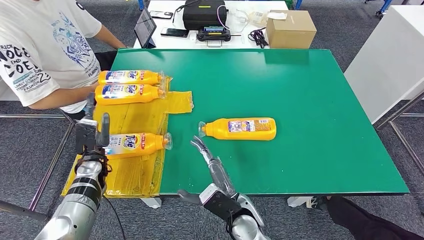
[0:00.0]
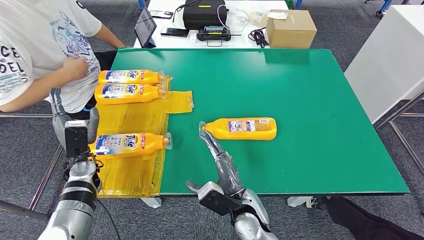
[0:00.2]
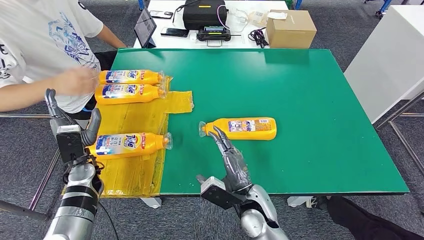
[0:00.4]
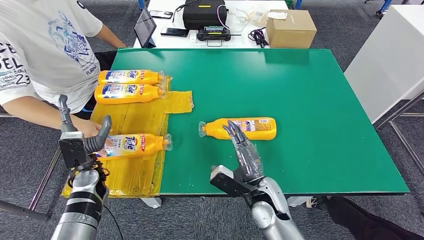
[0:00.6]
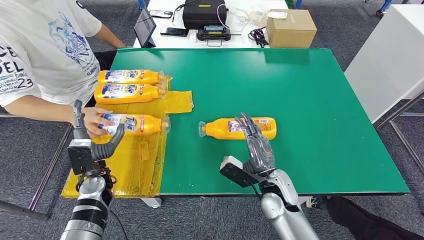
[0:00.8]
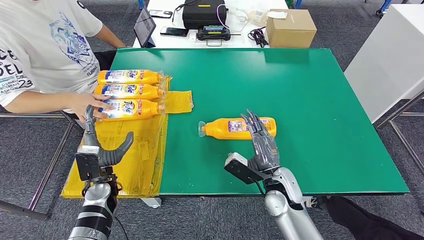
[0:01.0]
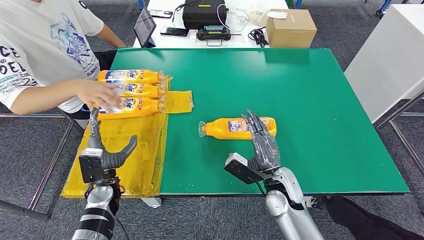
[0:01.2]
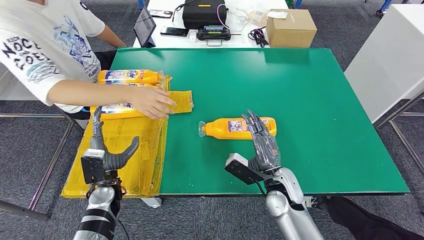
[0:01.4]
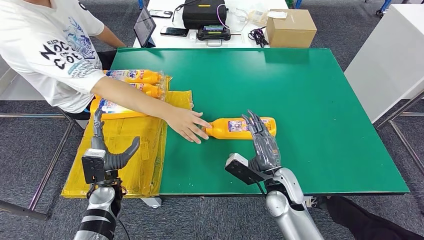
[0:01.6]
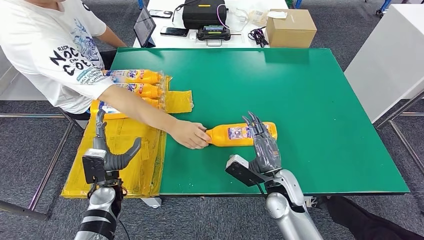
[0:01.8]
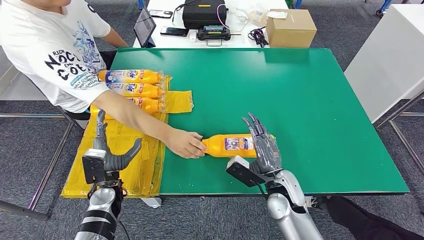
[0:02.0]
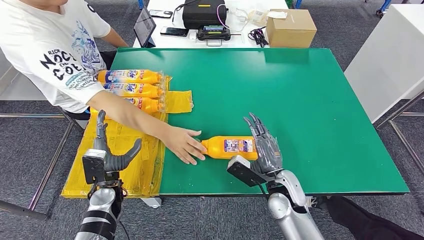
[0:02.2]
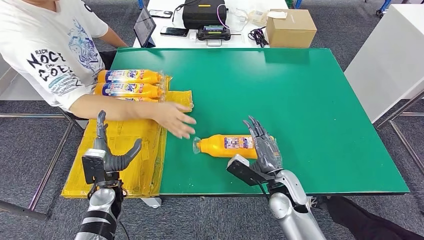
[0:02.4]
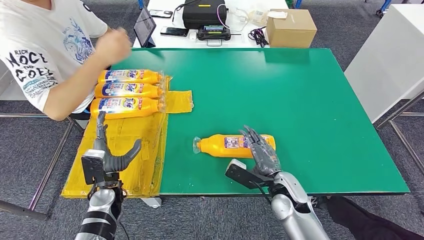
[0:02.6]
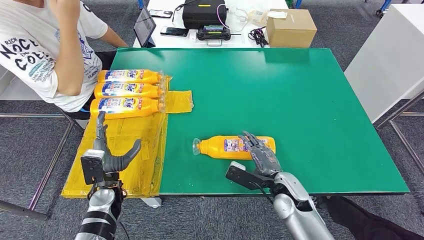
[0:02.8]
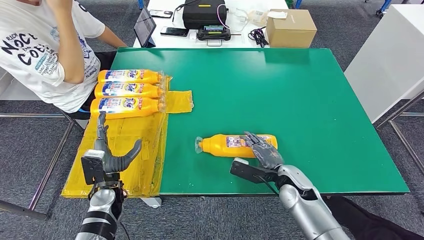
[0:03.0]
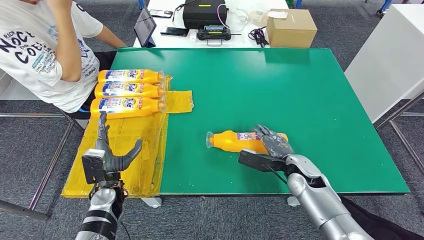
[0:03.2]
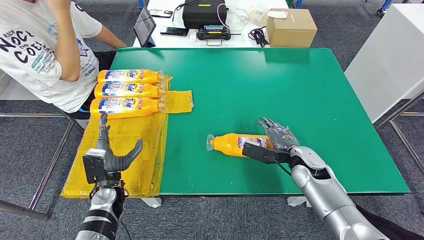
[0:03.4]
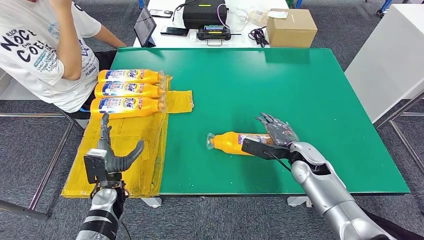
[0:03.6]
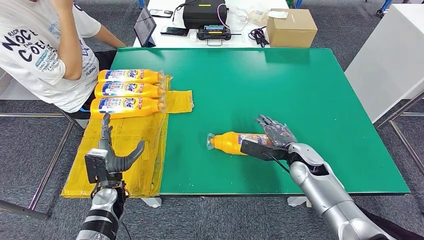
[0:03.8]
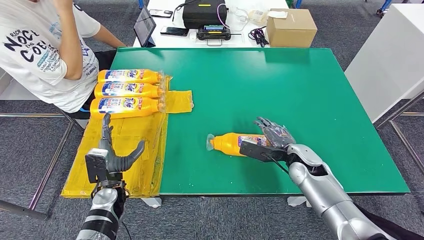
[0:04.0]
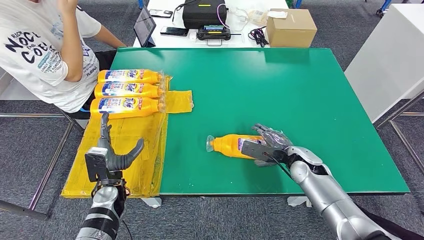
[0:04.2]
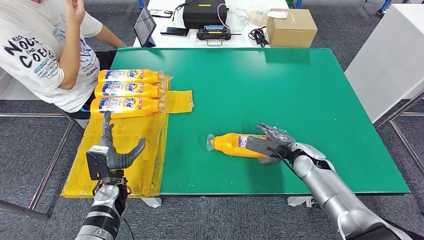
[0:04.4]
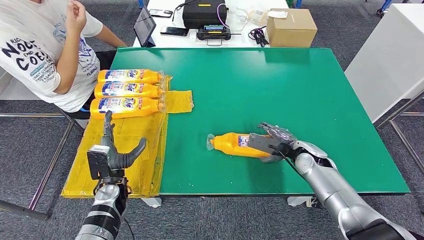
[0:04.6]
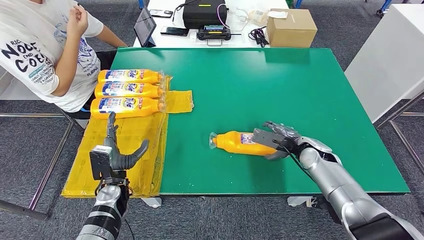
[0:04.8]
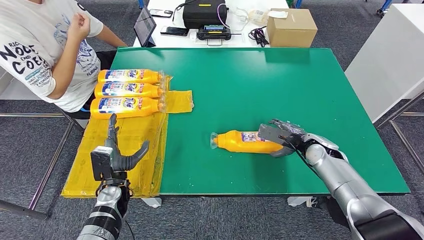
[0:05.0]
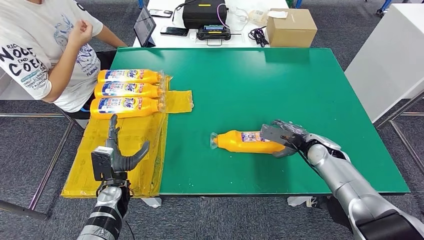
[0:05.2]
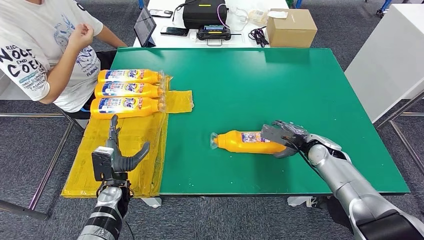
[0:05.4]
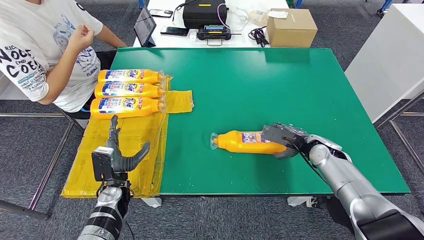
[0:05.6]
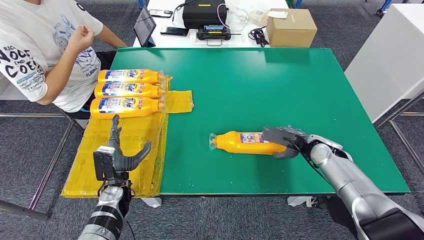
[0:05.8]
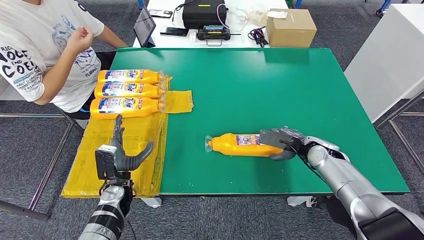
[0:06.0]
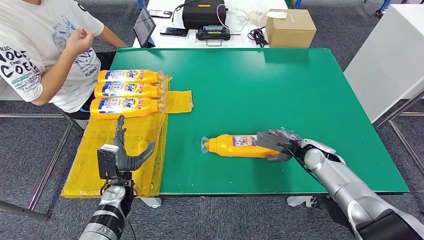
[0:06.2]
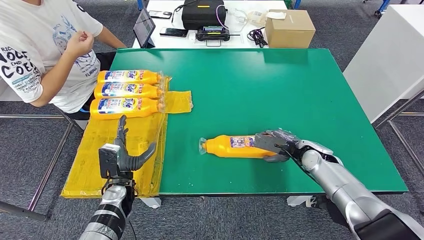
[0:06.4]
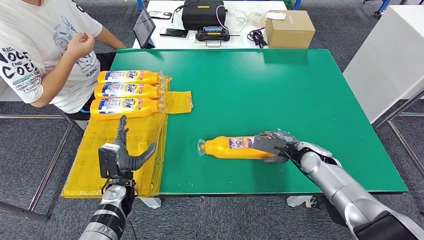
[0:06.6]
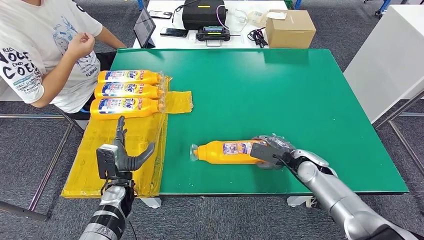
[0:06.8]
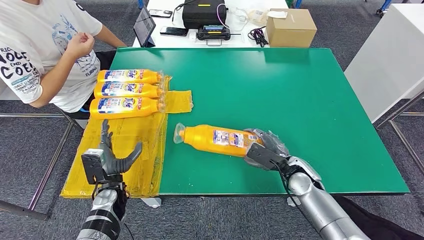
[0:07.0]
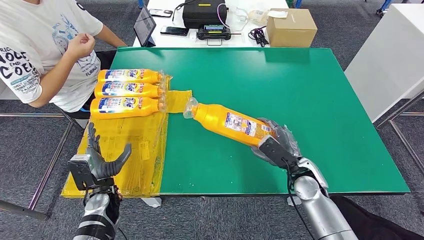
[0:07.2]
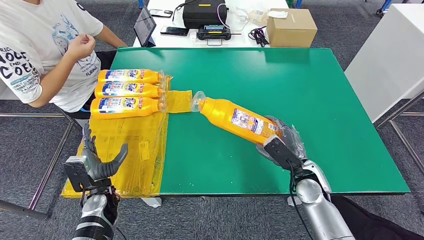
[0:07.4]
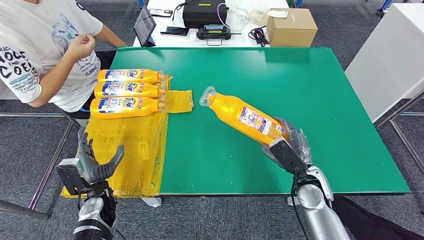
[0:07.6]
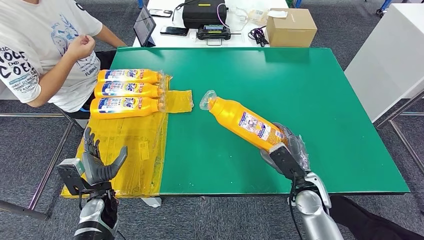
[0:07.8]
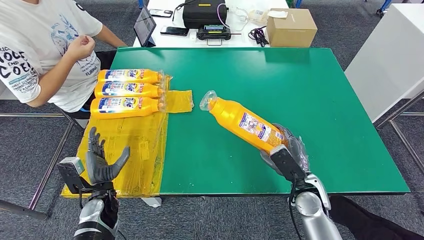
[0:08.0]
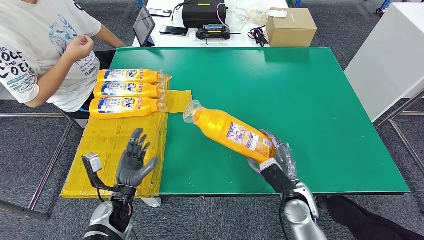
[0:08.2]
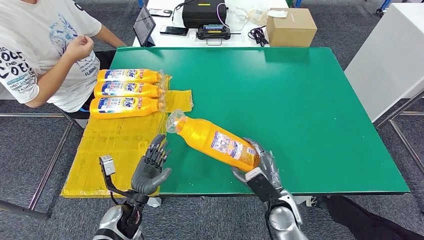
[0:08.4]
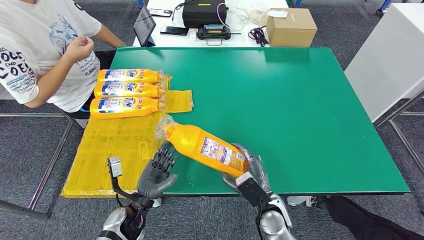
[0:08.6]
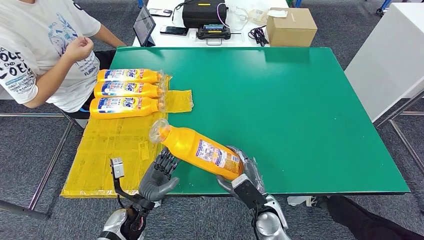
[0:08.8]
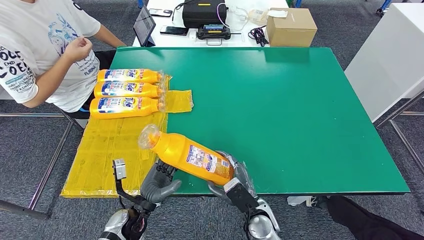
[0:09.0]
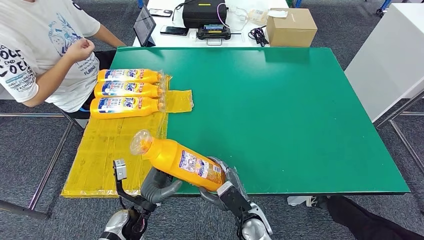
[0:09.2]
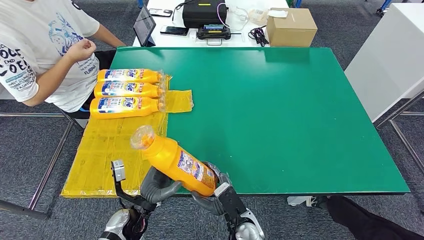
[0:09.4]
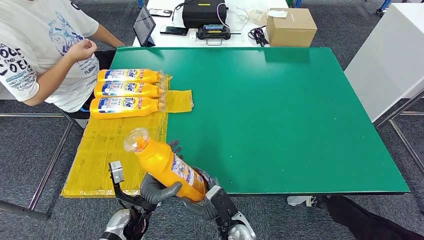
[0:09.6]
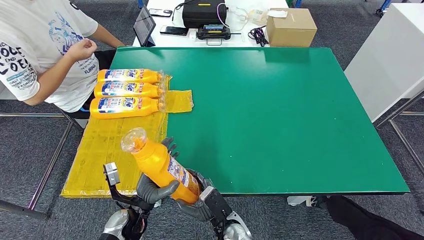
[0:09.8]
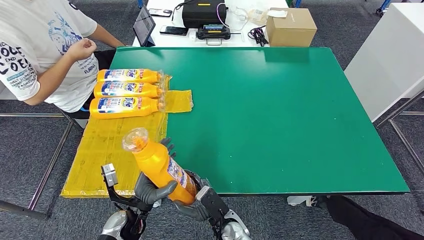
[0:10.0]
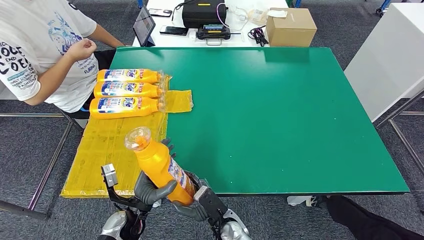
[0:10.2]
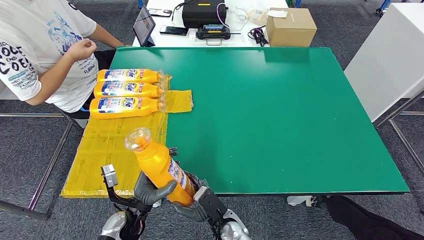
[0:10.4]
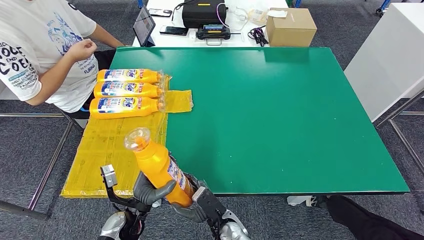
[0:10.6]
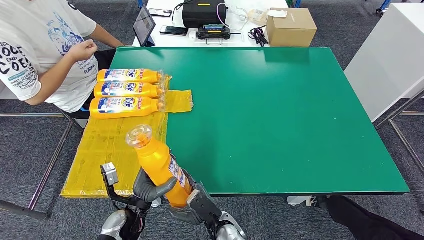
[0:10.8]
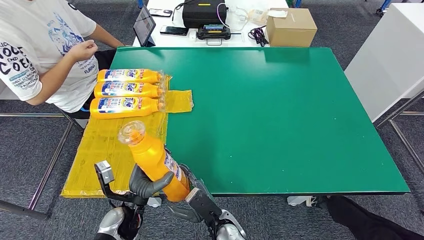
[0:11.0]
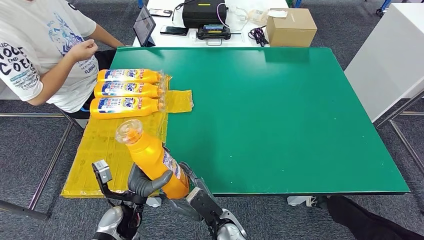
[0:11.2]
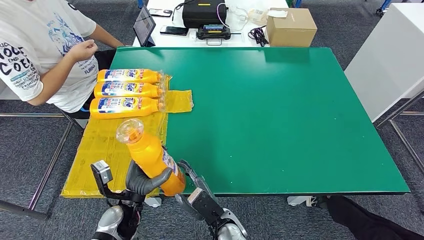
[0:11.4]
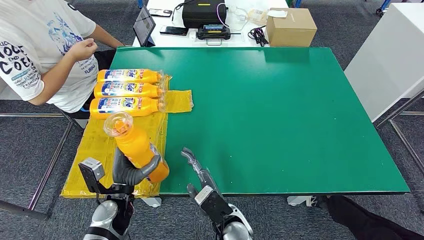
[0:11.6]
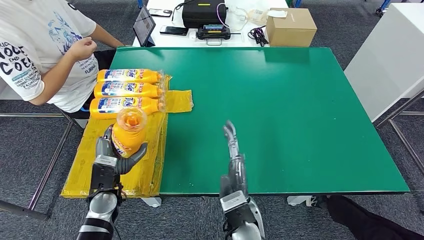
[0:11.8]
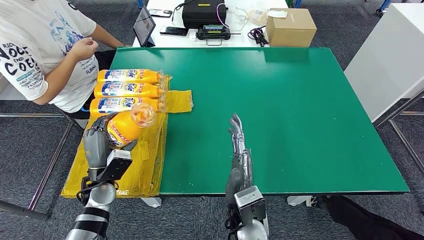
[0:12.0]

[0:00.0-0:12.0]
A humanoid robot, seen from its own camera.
Step, 0:06.6 to 0:10.4: Pick up the bottle from the table.
0:01.6 to 0:03.0: The right hand ends up approximately 5 cm from where it was.
0:03.0 to 0:04.4: The right hand goes some 10 cm forward and to the right.
0:04.4 to 0:06.0: The hands make only small movements.
0:09.0 to 0:10.4: The right hand travels to the left by about 10 cm.
0:10.4 to 0:12.0: The left hand travels to the left, forward and upward by about 10 cm; the right hand moves upward, about 15 cm.

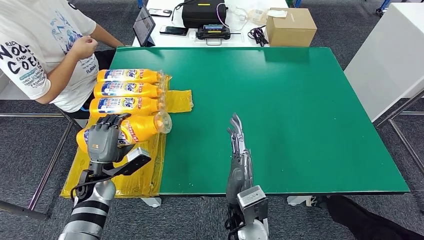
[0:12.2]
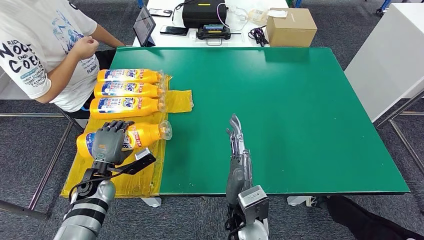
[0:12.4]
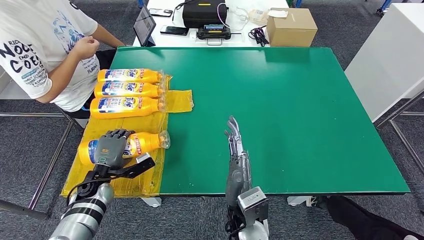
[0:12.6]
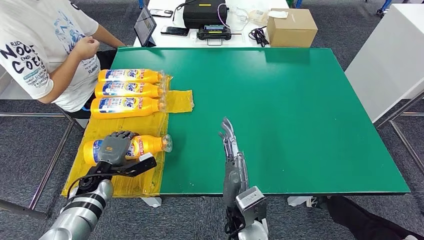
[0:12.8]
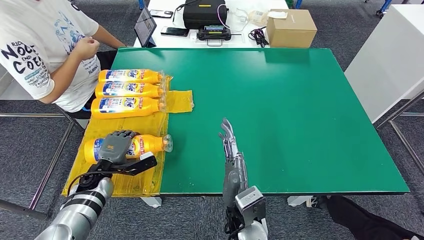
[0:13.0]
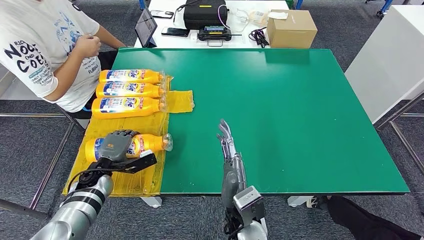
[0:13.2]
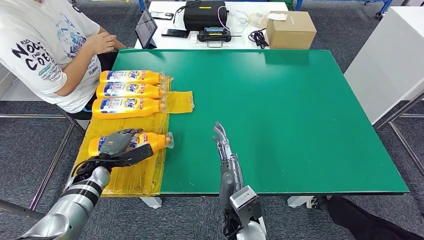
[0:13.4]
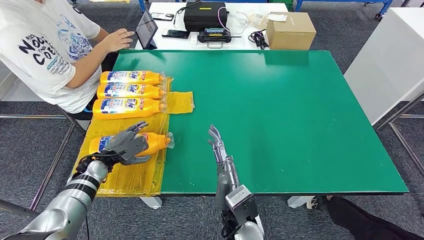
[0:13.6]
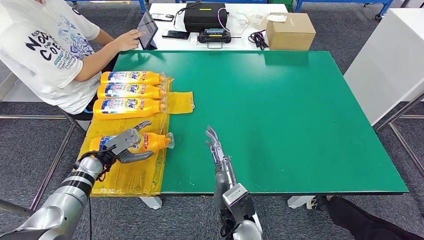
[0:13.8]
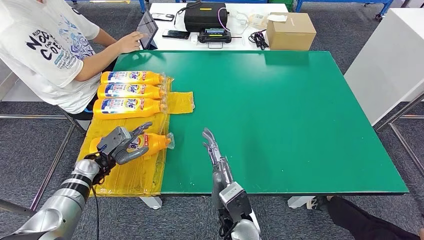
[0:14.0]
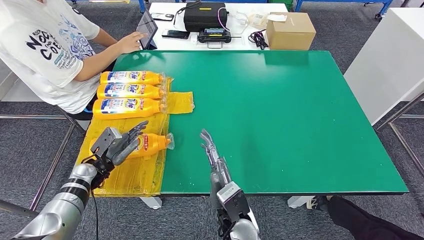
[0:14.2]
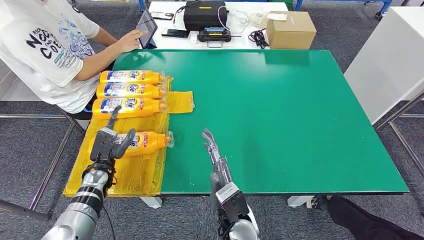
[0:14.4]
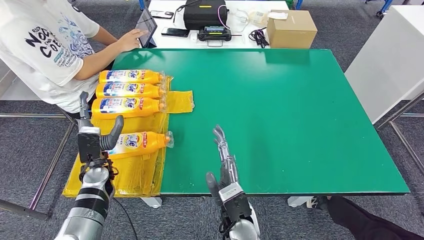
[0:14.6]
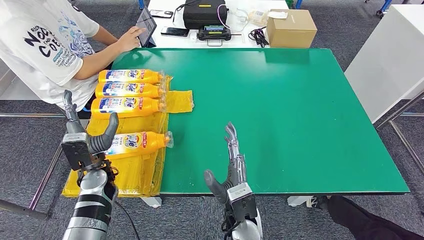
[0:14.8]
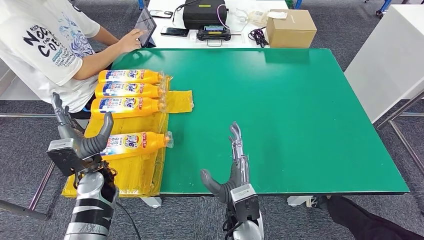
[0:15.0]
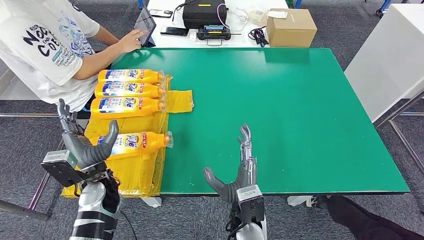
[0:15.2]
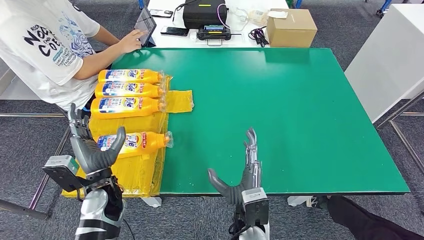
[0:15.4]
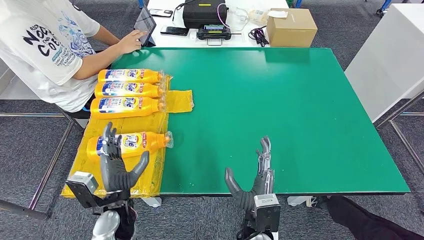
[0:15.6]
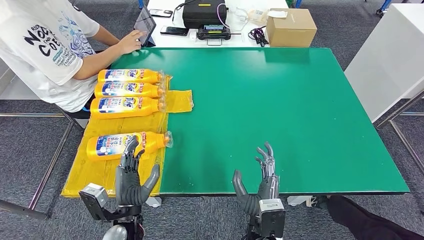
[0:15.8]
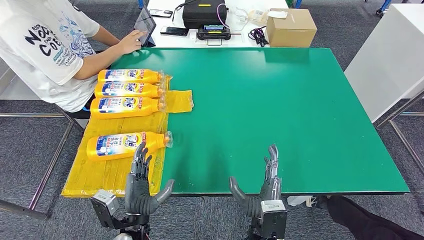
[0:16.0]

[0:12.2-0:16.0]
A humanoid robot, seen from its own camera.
Step, 0:12.2 to 0:16.0: Flip the bottle to face forward.
0:14.8 to 0:16.0: The right hand ends up about 5 cm from where it was, while the left hand is displaced backward and to the right by about 15 cm.
